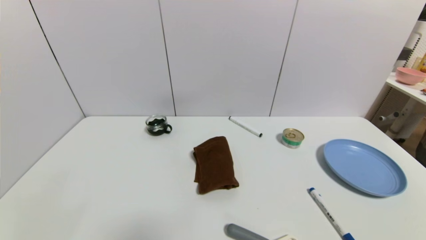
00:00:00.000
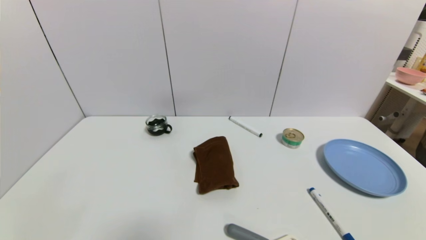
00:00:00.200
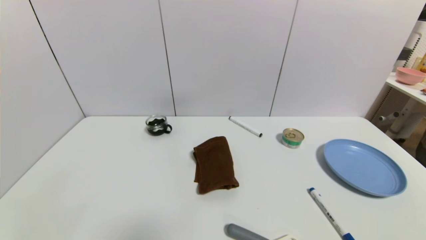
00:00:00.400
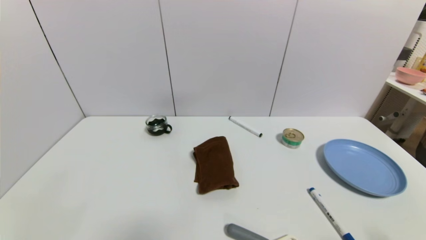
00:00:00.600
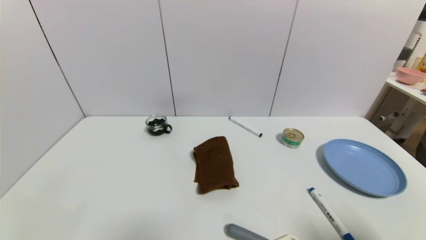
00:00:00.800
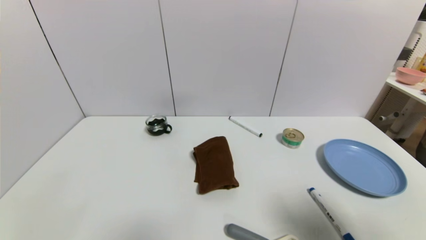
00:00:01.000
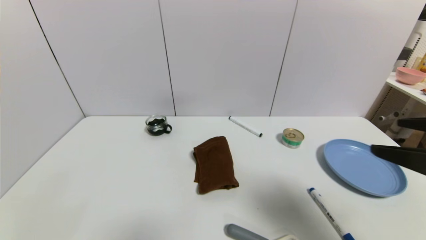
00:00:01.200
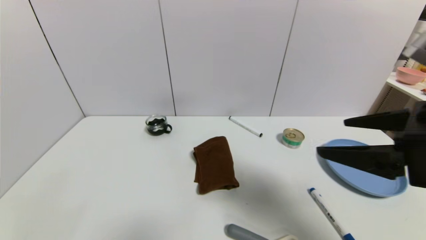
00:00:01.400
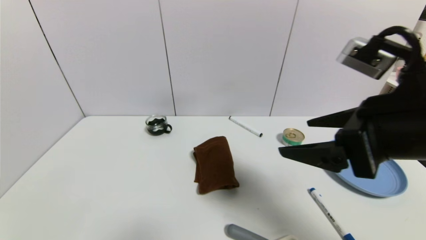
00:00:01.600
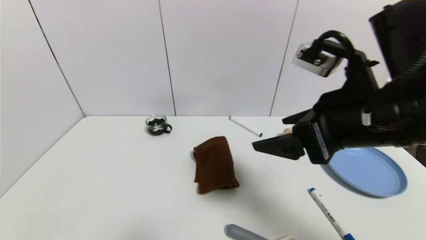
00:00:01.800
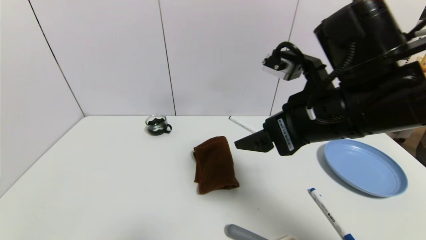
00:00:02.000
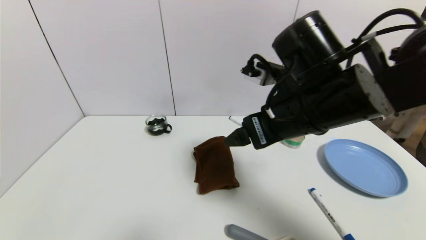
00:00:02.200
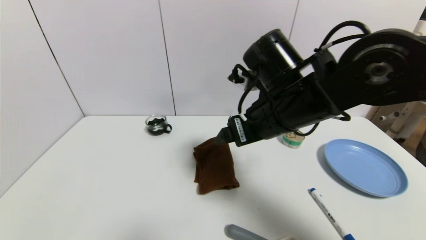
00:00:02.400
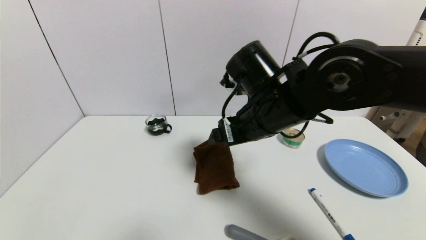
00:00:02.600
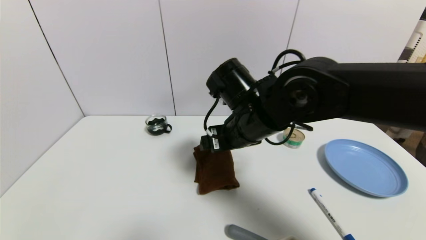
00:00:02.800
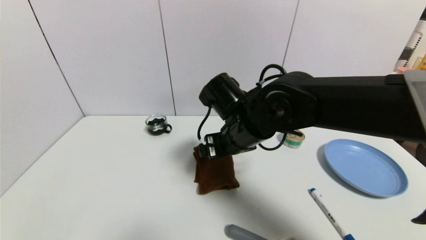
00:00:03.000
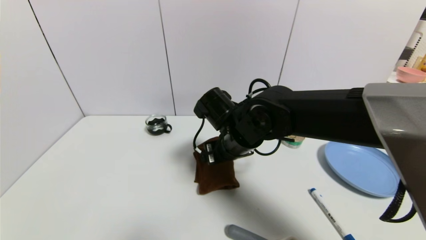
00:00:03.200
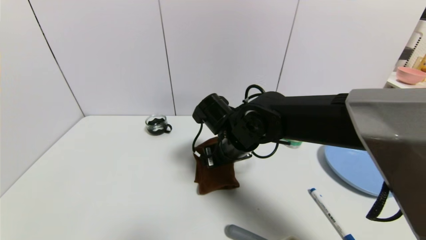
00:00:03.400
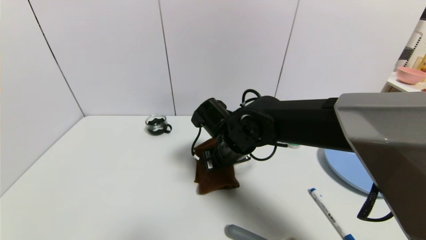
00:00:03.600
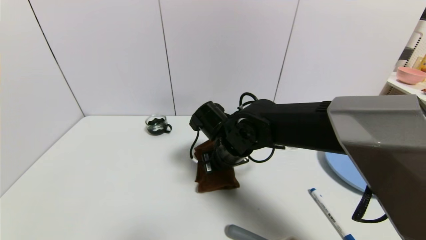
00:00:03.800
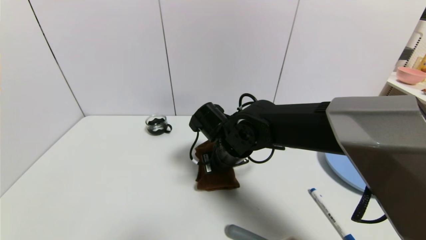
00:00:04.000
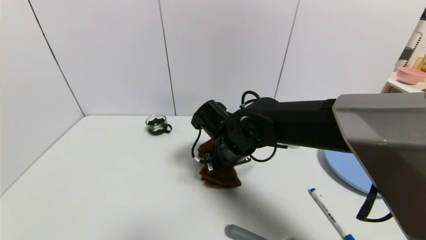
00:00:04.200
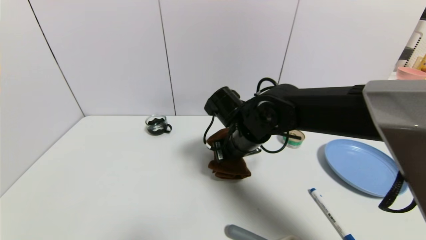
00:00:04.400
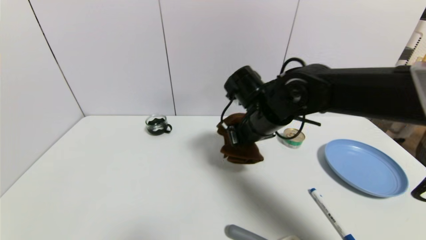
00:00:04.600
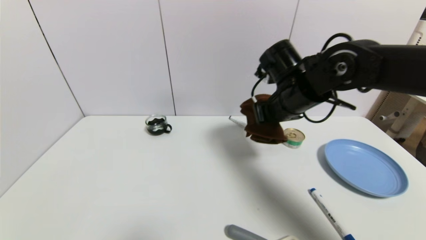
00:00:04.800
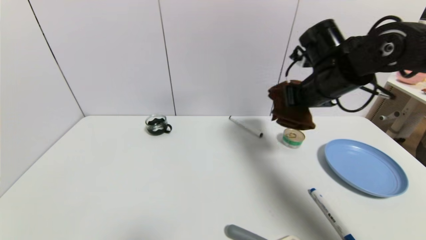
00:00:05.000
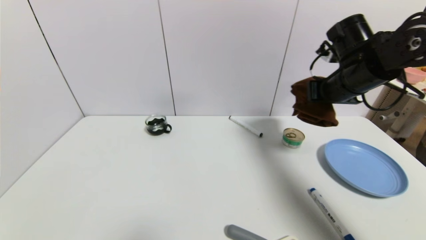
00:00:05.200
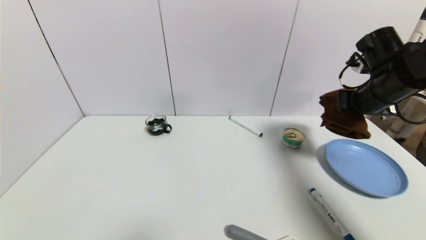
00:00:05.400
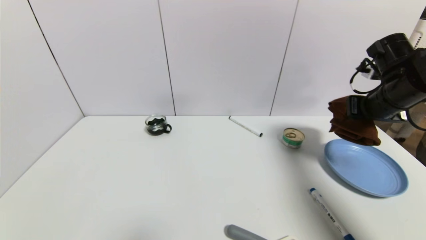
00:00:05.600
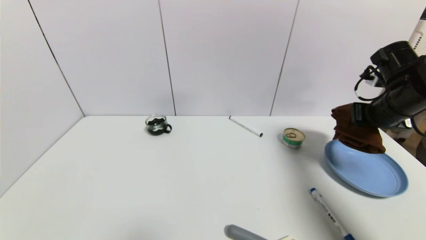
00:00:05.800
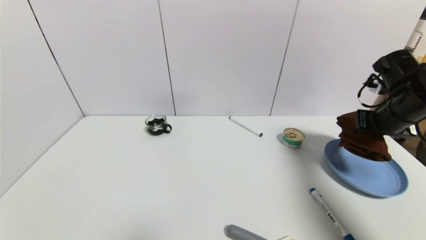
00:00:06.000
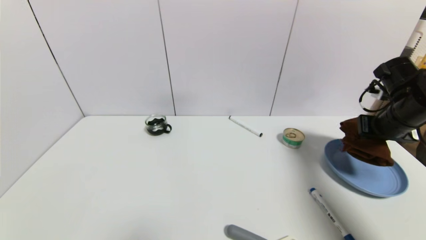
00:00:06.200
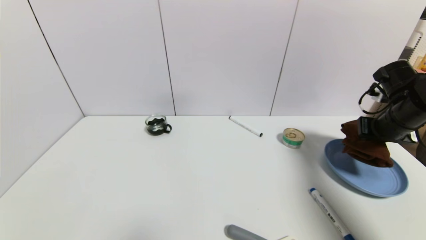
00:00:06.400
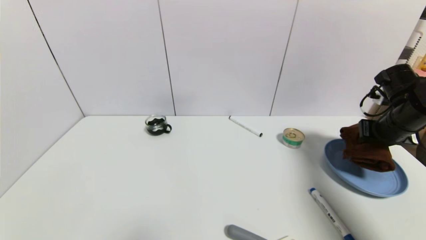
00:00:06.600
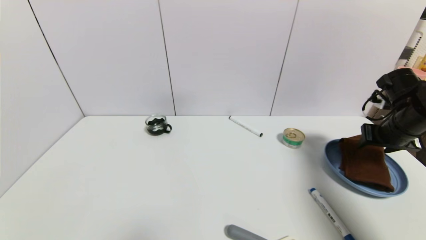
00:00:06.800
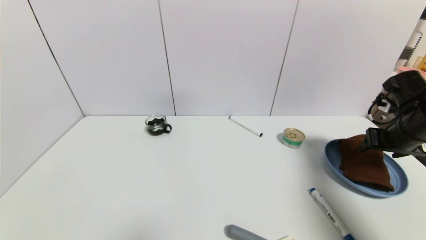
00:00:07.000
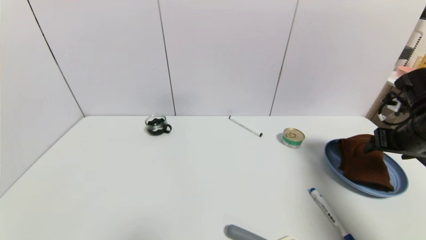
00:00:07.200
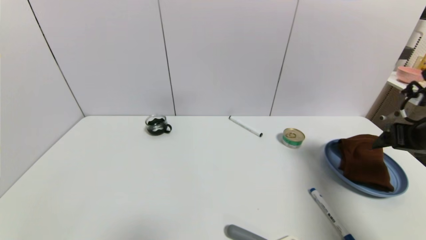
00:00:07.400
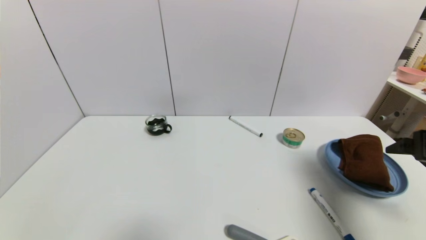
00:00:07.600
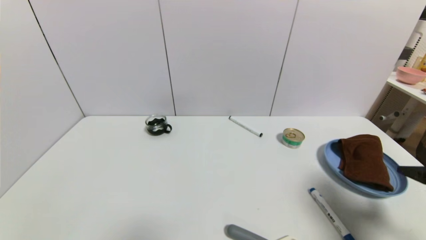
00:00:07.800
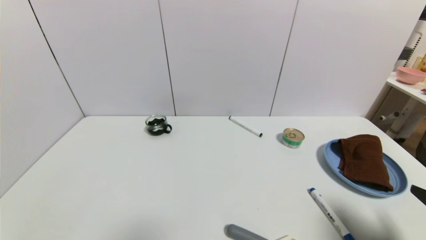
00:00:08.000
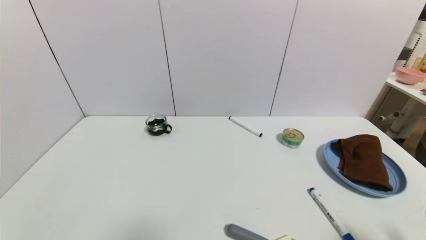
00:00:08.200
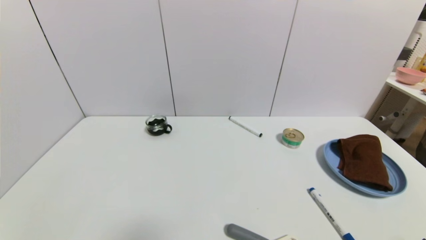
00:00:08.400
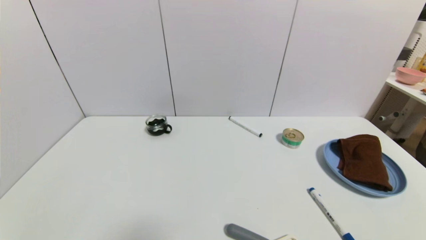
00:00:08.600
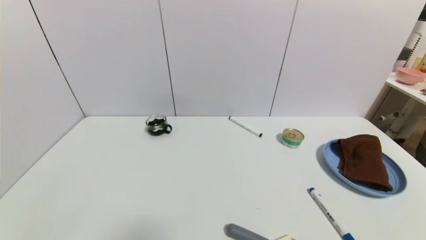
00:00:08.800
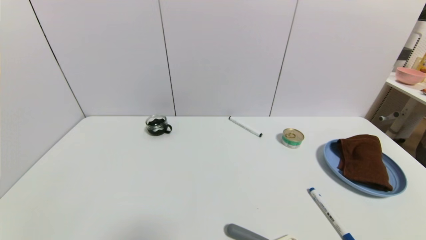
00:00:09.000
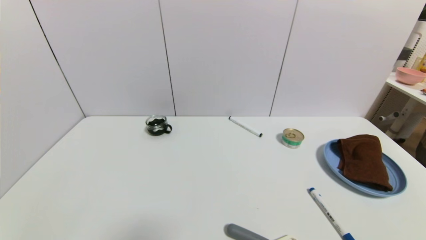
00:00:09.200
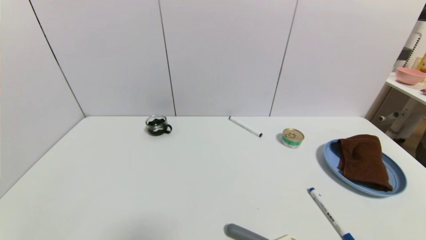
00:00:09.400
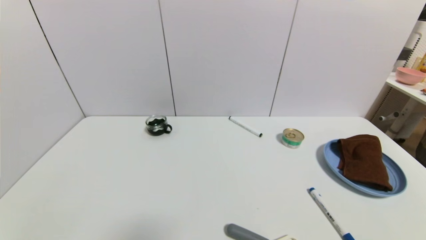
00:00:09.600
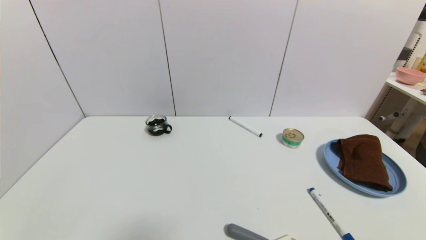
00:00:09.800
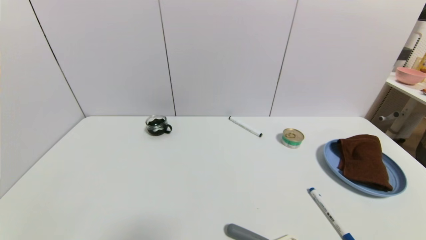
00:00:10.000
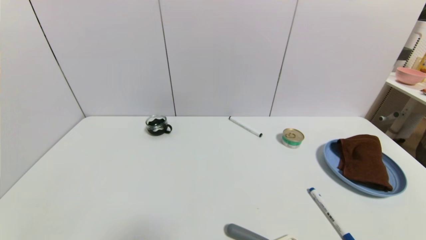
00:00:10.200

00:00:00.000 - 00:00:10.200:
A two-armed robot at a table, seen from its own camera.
Task of the whole recording: use a gripper to pick the target object and place on the blue plate.
Step, 00:00:00.000 - 00:00:04.200: Grasp the brown towel with the right gripper.
Step, 00:00:04.400 - 00:00:07.600: Place the brown towel on the blue plate with the right gripper.
00:00:00.000 - 00:00:01.400: The right gripper moves upward, forward and to the left, about 30 cm.
00:00:01.400 - 00:00:03.000: The right gripper is displaced to the left, forward and downward by about 25 cm.
00:00:03.000 - 00:00:04.400: The right gripper closes up.
00:00:04.400 - 00:00:05.800: The right gripper shifts about 30 cm to the right.
00:00:05.800 - 00:00:07.200: The right gripper ends up some 5 cm from where it was, and opens up.
00:00:07.200 - 00:00:08.800: The right gripper goes roughly 30 cm backward and downward.
00:00:08.800 - 00:00:10.200: Both grippers stay put.
